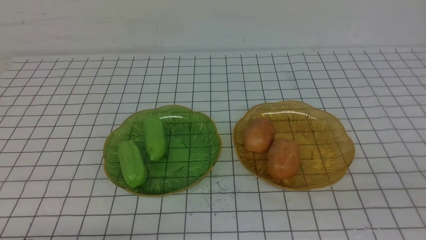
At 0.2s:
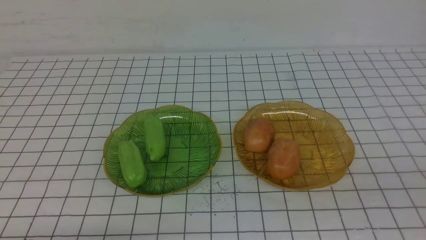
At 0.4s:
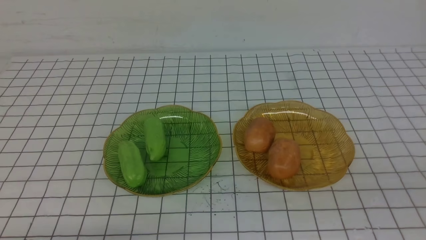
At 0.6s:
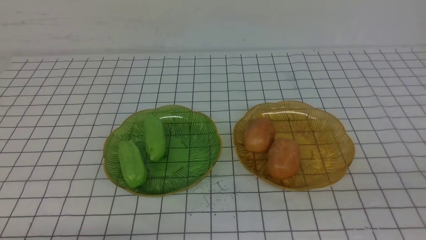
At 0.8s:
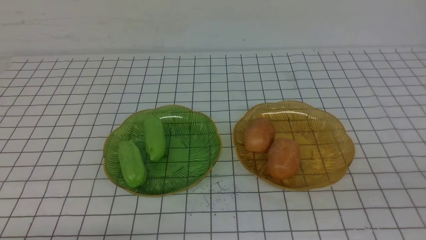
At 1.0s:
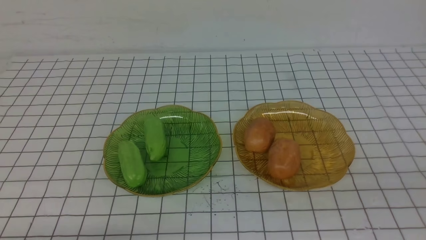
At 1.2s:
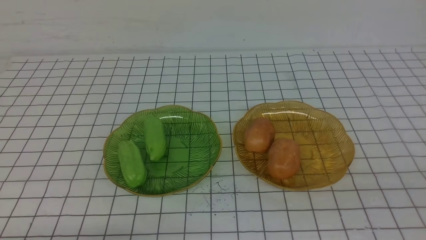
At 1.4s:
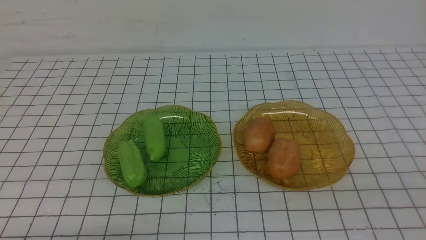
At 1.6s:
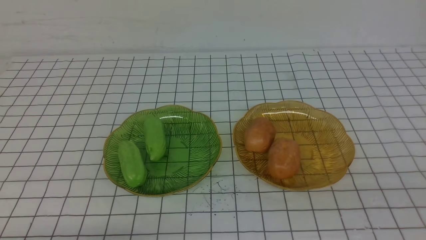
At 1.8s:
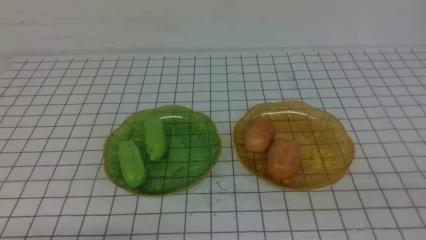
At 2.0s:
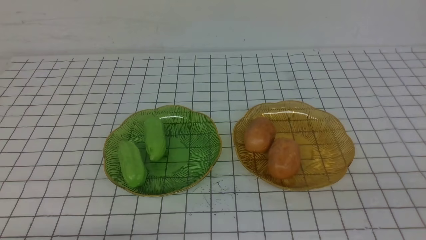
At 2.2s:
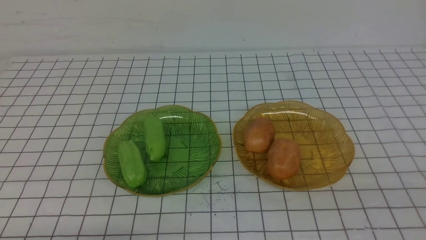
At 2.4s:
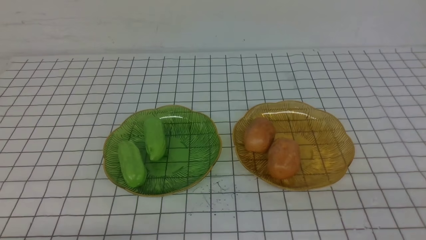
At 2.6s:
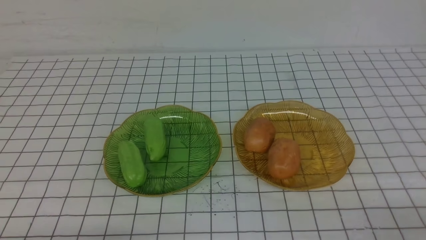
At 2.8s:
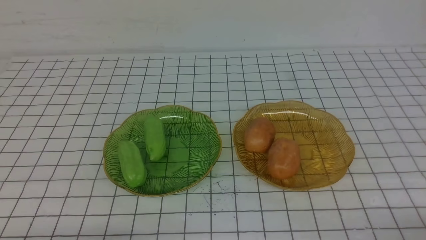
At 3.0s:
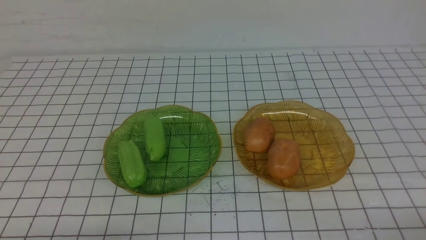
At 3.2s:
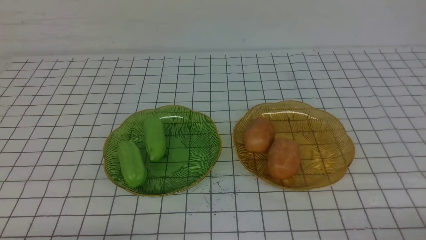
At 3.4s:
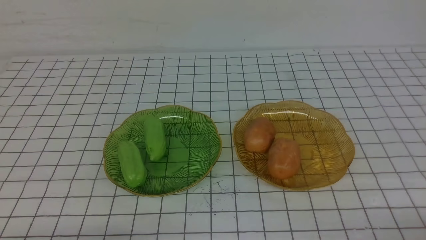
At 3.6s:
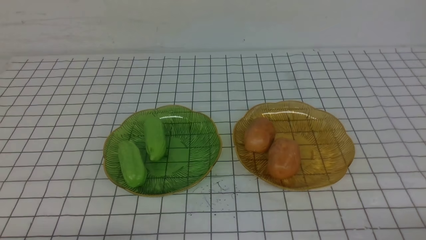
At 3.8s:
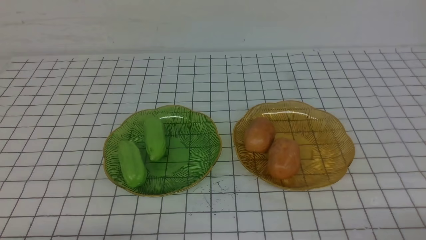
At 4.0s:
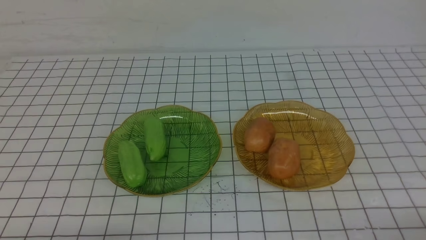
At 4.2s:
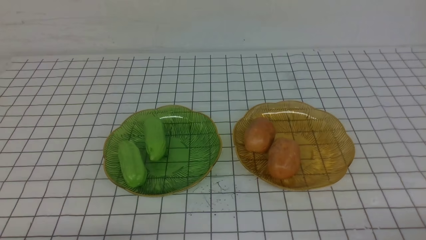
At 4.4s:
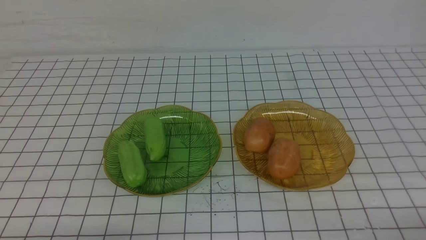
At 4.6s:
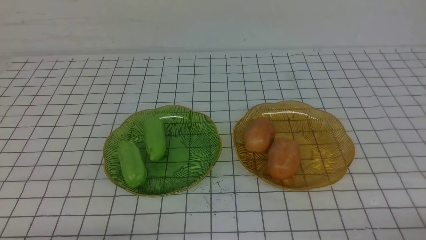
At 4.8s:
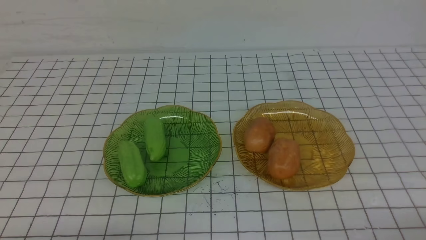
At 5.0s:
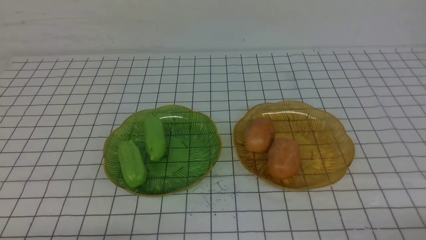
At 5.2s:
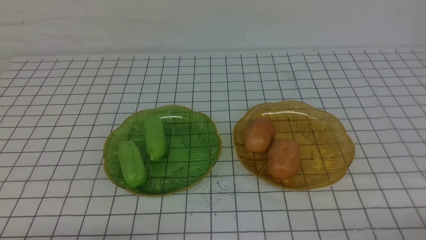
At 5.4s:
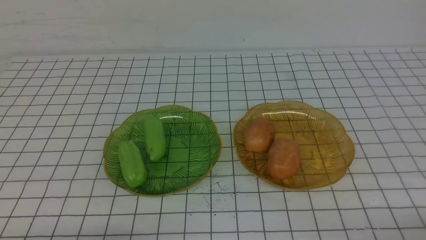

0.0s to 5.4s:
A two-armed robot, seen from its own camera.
2.8s to 5.4s: Neither gripper changes place.

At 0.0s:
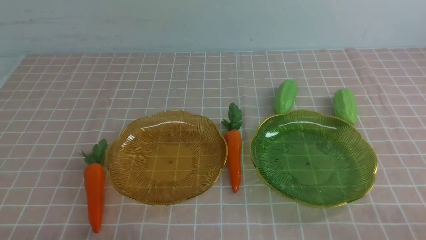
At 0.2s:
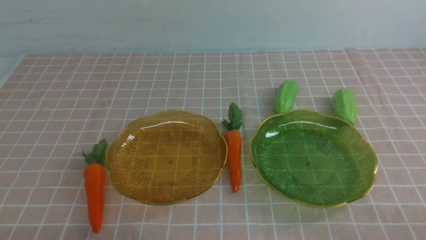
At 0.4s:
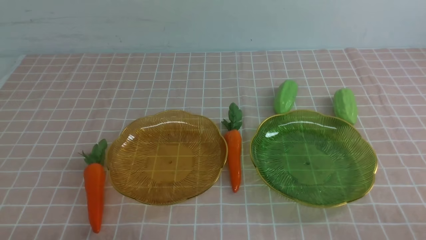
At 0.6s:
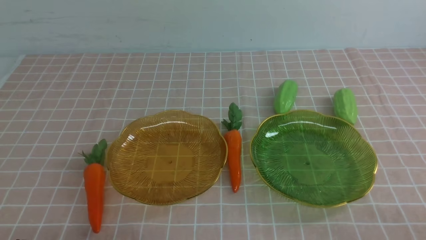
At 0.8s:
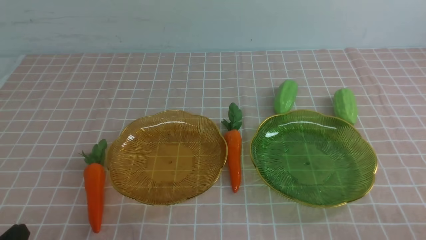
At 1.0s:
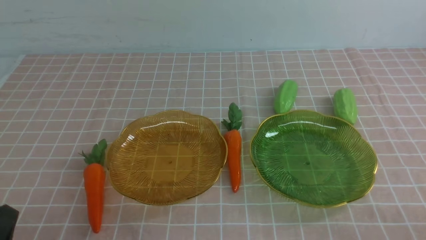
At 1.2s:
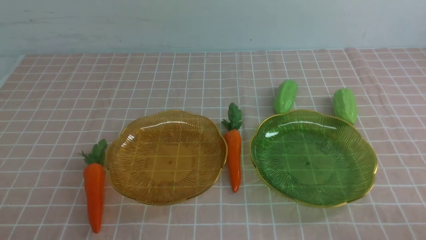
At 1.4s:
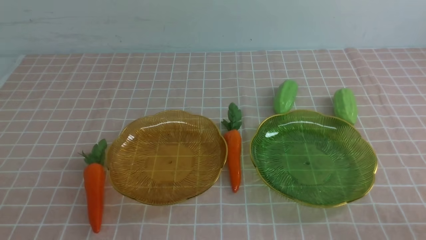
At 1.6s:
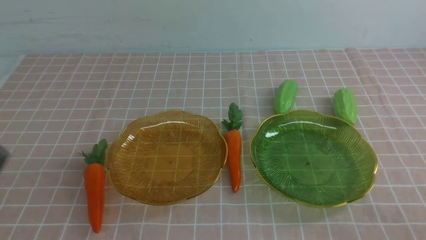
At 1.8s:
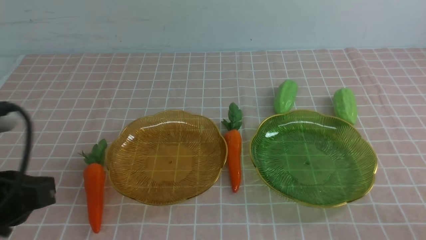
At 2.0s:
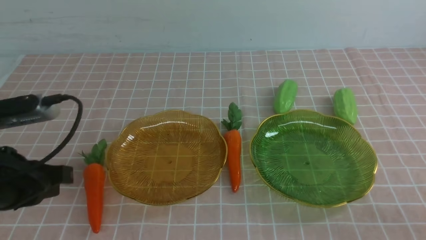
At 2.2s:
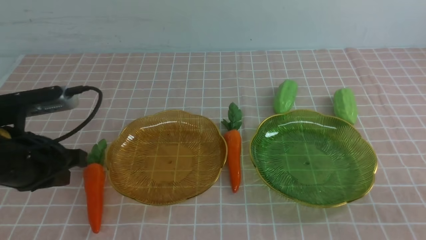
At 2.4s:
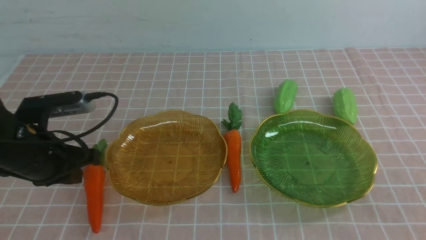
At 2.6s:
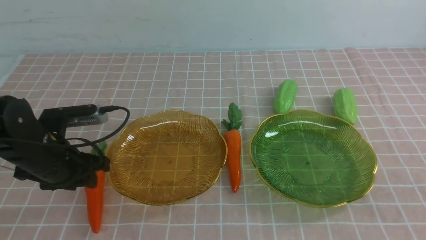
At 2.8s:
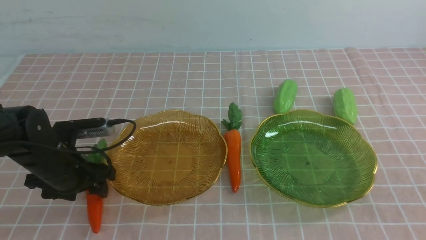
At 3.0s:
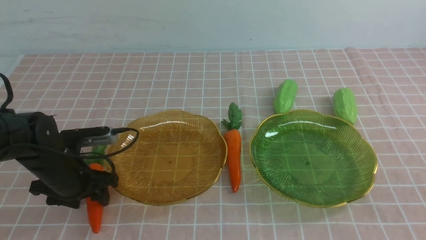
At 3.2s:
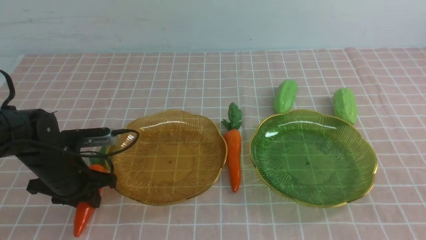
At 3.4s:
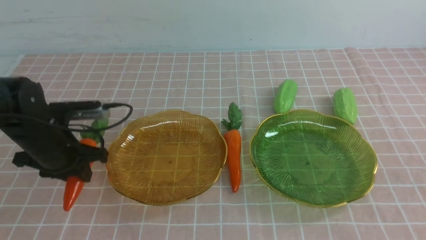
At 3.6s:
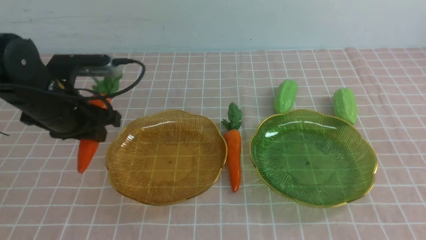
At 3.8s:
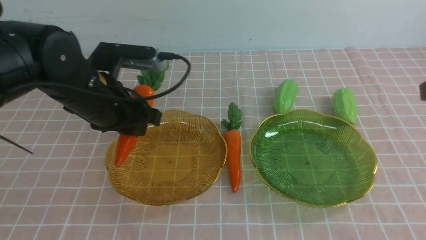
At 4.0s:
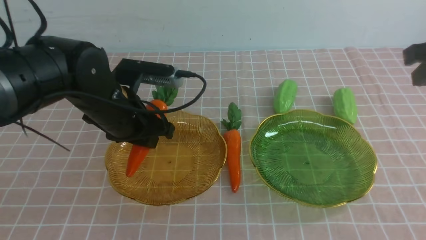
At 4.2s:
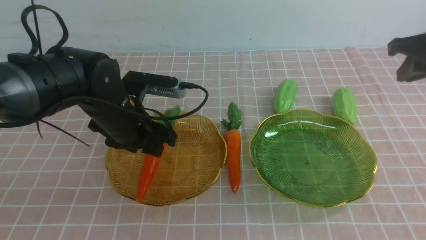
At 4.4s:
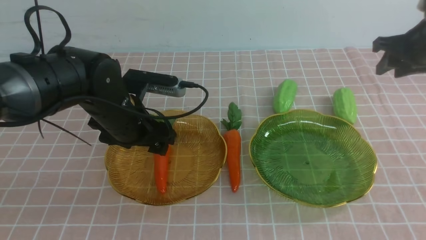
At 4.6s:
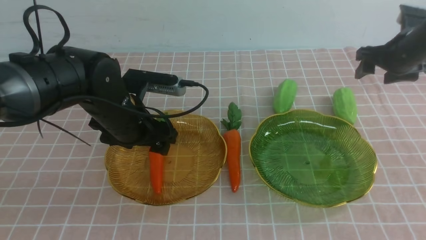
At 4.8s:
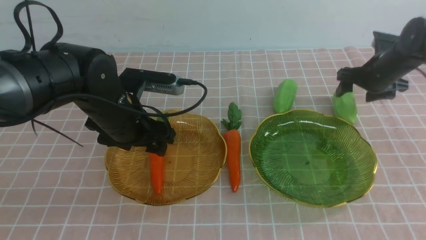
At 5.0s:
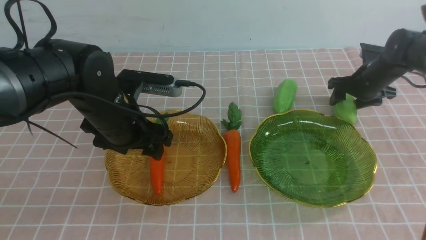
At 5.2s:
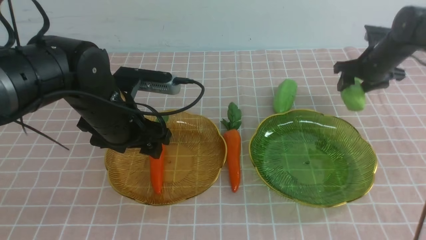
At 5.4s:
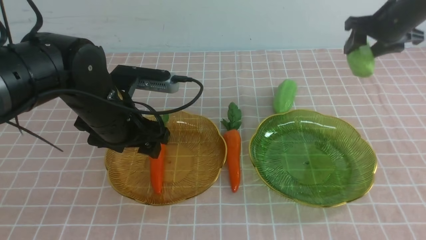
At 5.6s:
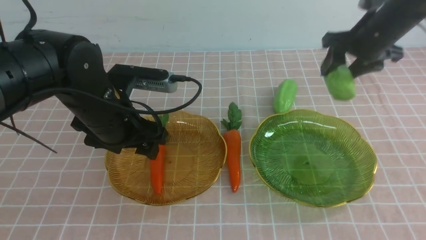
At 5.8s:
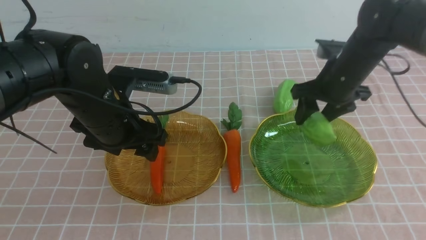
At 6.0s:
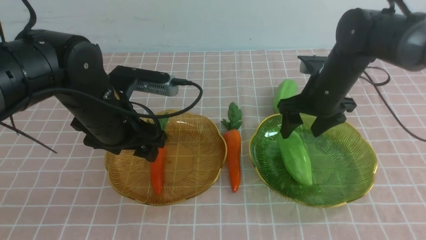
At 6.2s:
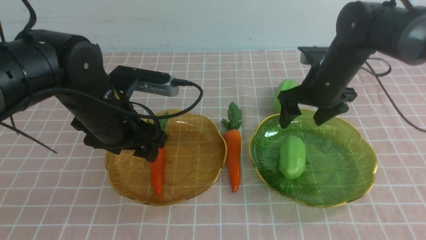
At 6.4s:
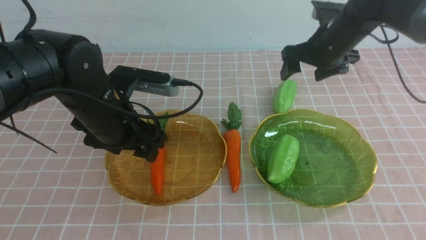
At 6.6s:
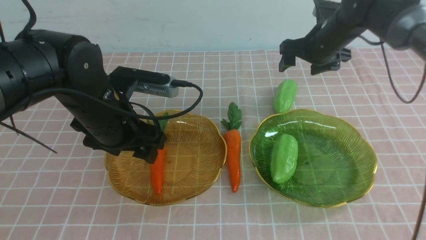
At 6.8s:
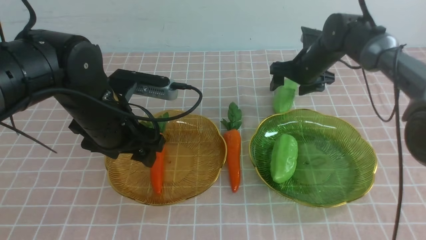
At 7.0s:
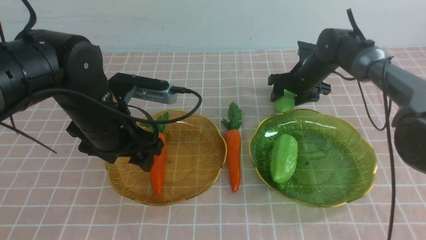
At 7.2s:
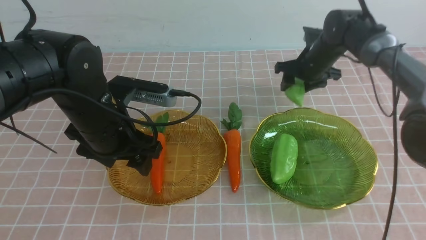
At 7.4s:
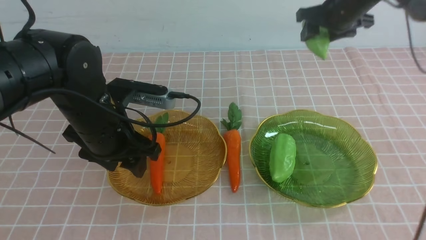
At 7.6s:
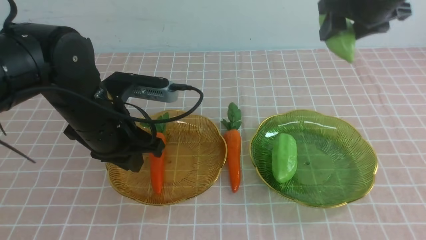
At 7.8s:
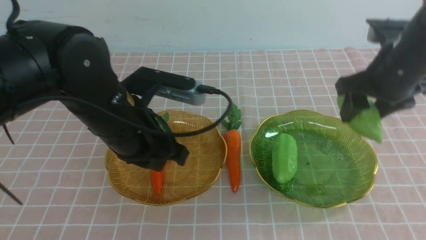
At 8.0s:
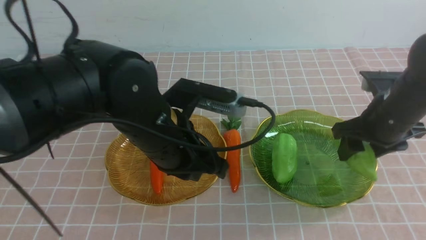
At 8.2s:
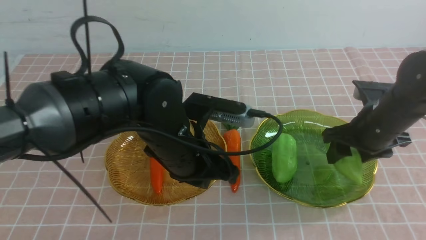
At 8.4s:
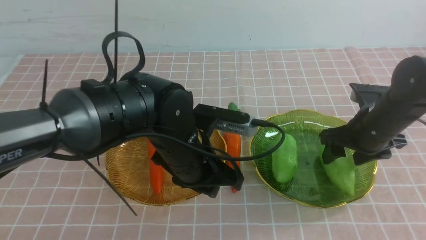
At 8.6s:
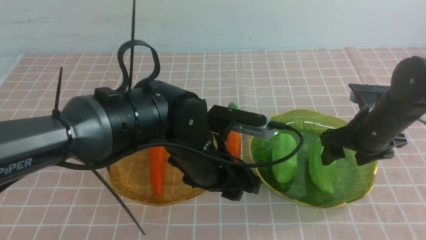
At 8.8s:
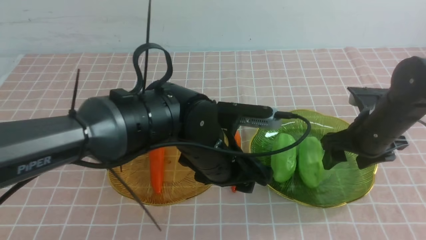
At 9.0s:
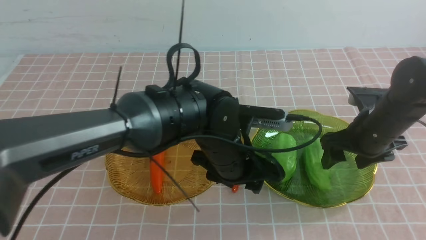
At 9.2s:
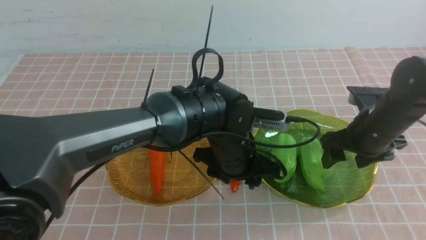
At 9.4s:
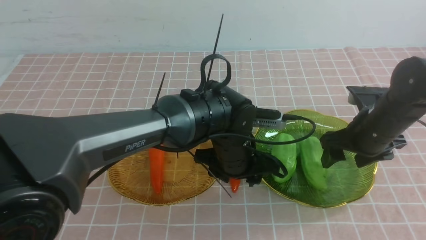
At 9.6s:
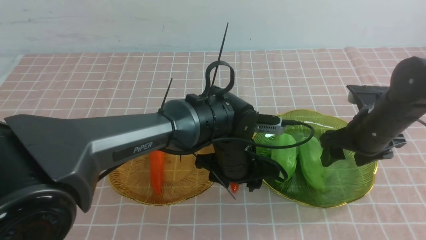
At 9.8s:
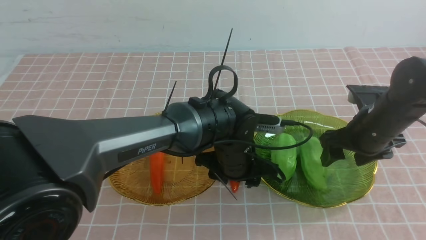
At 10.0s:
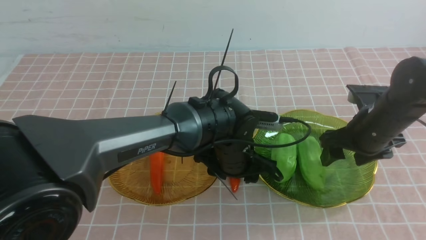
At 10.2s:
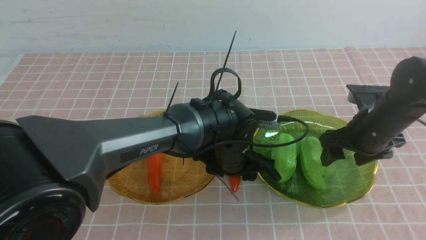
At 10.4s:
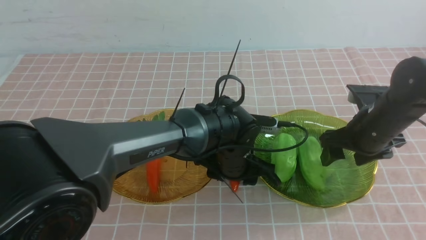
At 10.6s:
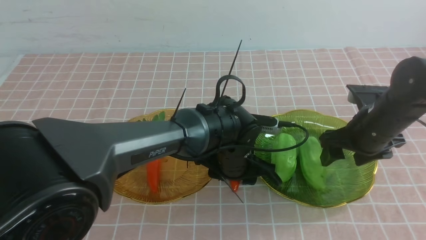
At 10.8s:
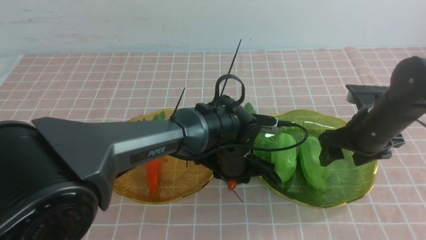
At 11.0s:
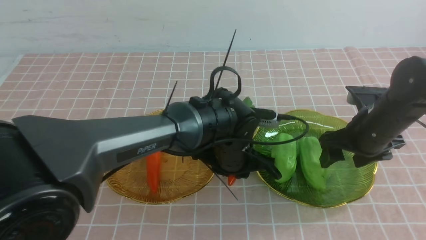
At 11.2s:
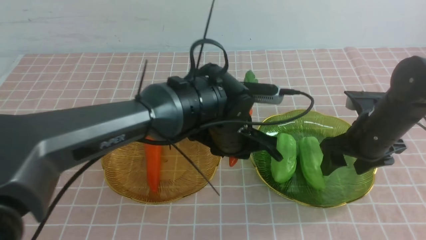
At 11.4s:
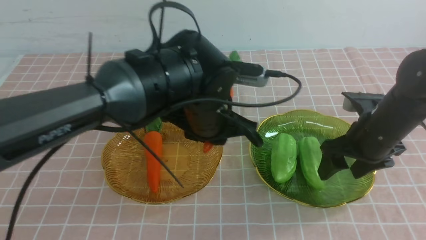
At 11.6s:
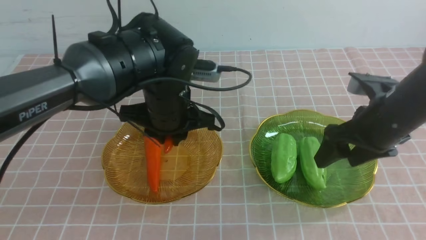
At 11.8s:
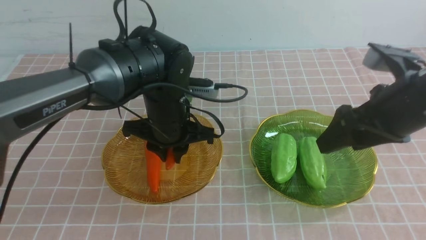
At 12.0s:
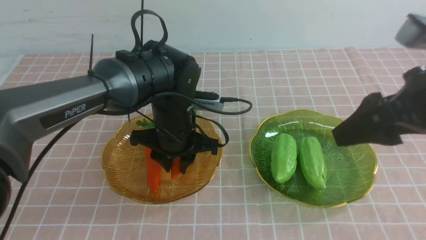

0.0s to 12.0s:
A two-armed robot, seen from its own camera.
Step, 0.0s to 4.2s: use the left arm to grab a carrot and put it into the left plate.
Step, 4.4s to 8.4s: use the right arm to grab a chayote and put it into the right plate.
1.6s to 3.0s: The right gripper heads upward, covering about 15 cm, while the left gripper travels forward and downward by some 25 cm, and opens up.
3.0s to 4.4s: The right gripper heads forward, covering some 40 cm, and opens up. Meanwhile the left gripper is displaced to the right and upward by some 15 cm, and closes and opens again.
4.4s to 6.0s: The right gripper is displaced to the left by roughly 15 cm.
6.0s to 7.6s: The right gripper moves backward and to the right, roughly 10 cm. The left gripper travels to the right by roughly 5 cm, and closes.
7.6s to 9.0s: The right gripper is displaced downward by approximately 5 cm, while the left gripper is displaced to the right, downward and forward by roughly 15 cm, and opens its fingers.
9.0s to 10.4s: The left gripper closes up.
10.4s to 12.0s: The right gripper is displaced upward and backward by approximately 25 cm. Meanwhile the left gripper travels to the left and upward by approximately 10 cm, and opens its fingers.
